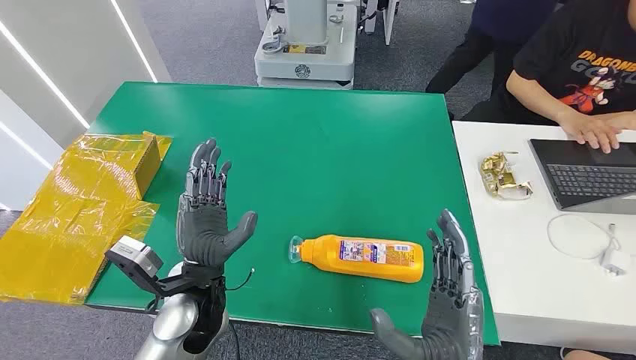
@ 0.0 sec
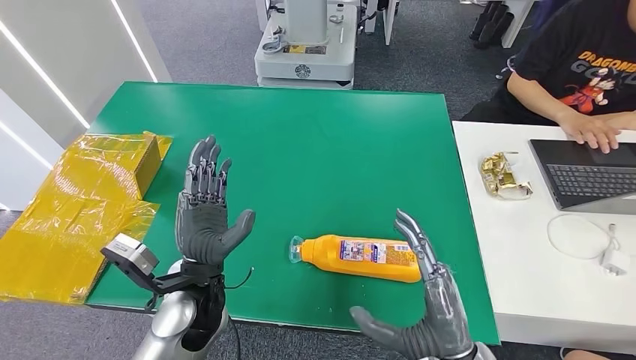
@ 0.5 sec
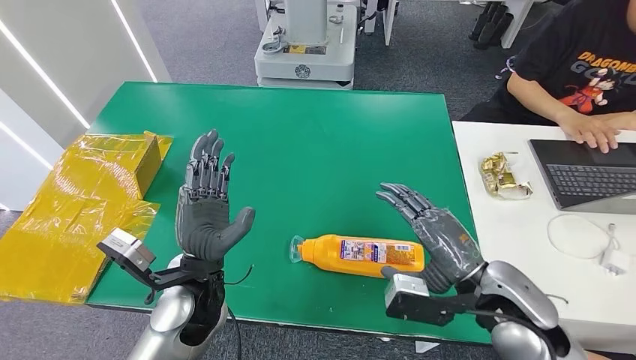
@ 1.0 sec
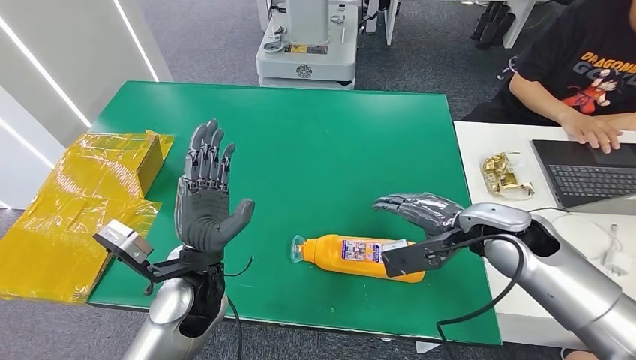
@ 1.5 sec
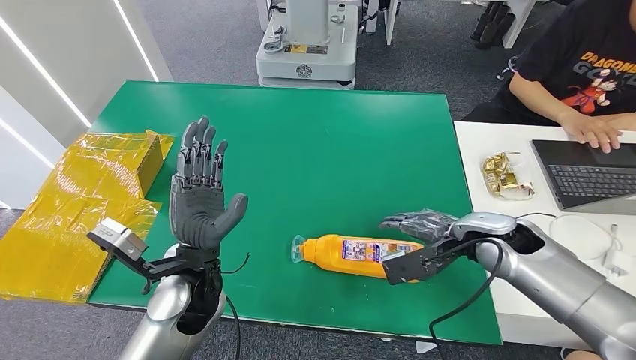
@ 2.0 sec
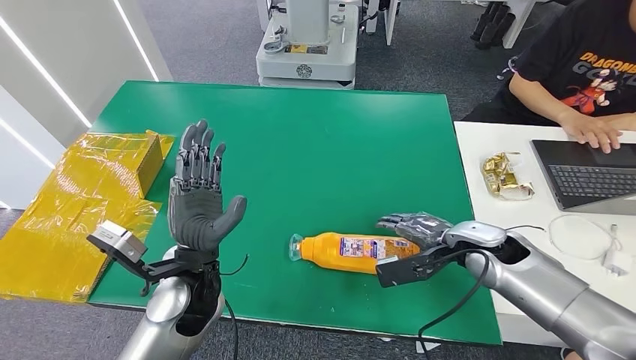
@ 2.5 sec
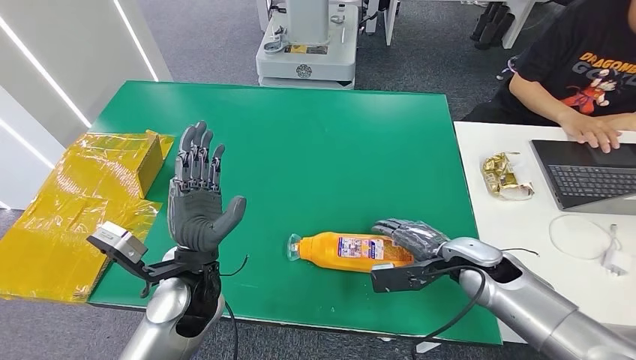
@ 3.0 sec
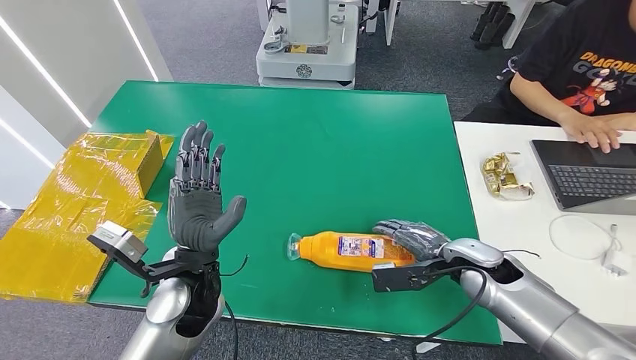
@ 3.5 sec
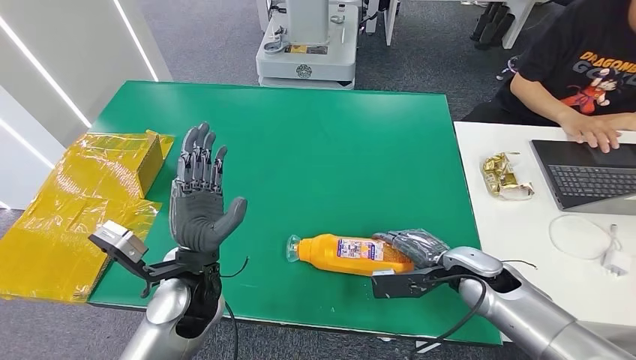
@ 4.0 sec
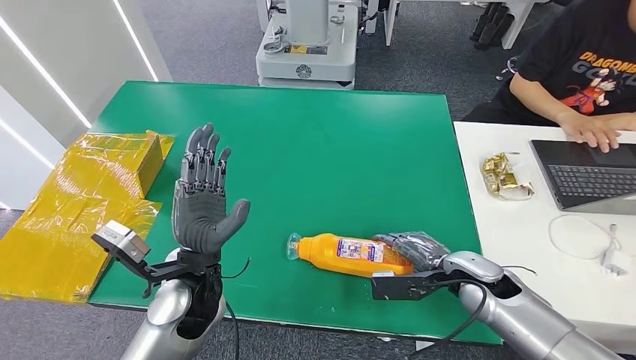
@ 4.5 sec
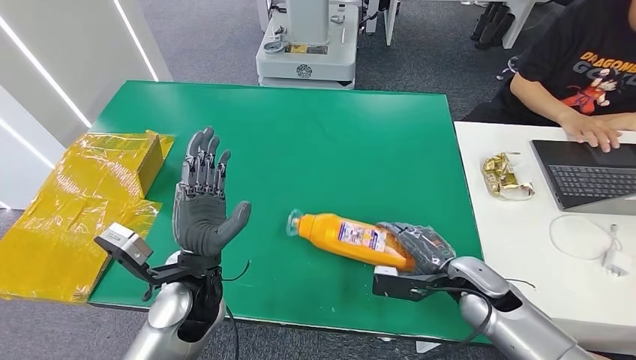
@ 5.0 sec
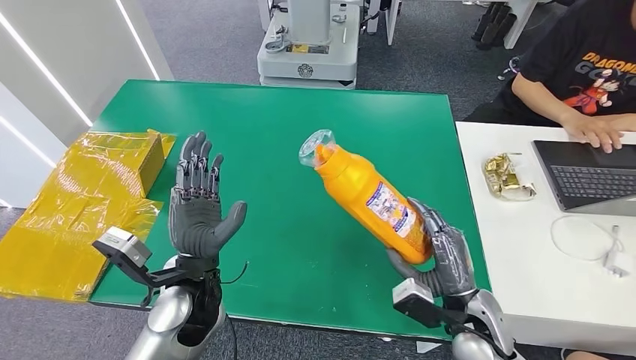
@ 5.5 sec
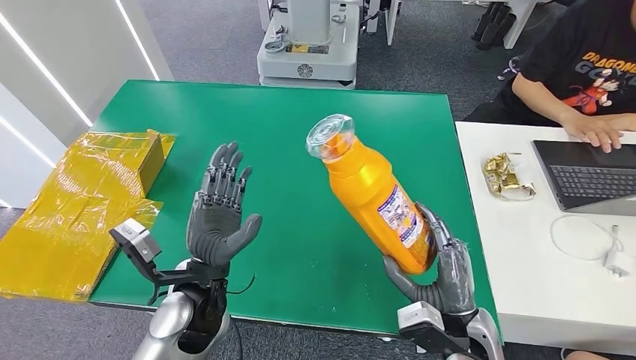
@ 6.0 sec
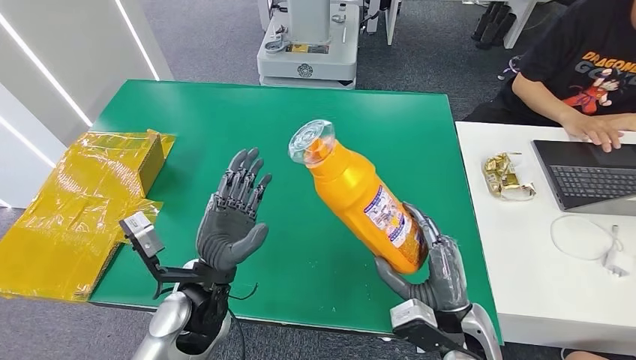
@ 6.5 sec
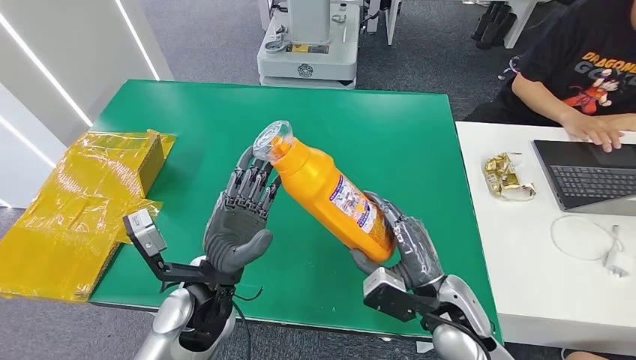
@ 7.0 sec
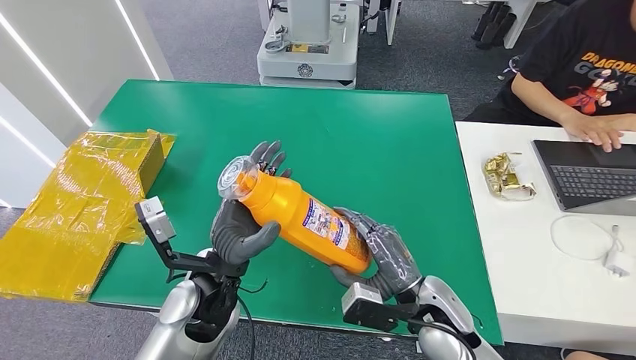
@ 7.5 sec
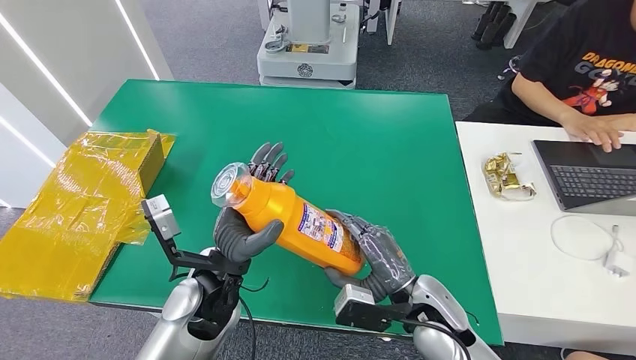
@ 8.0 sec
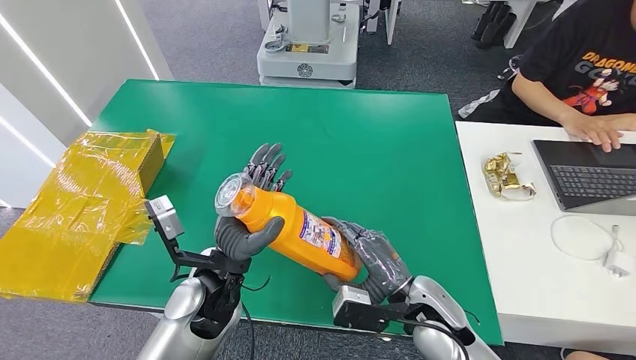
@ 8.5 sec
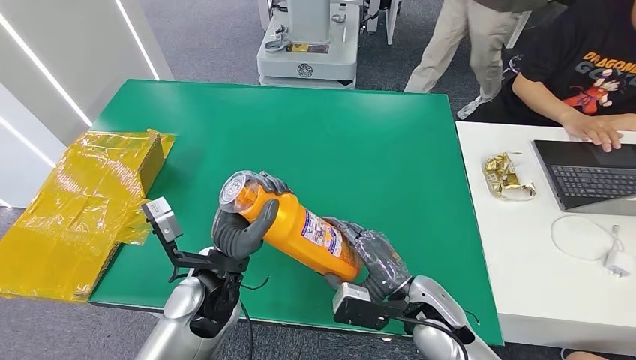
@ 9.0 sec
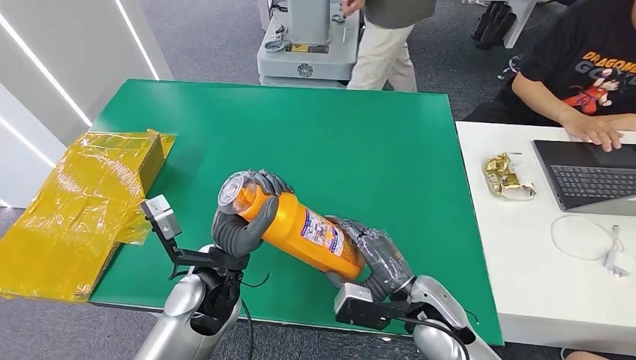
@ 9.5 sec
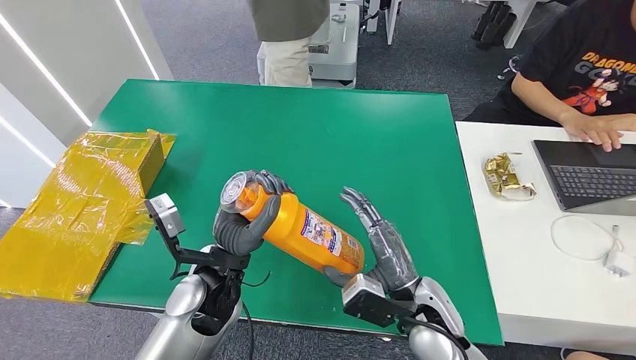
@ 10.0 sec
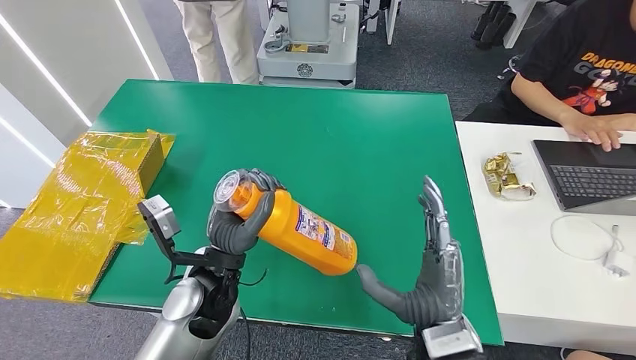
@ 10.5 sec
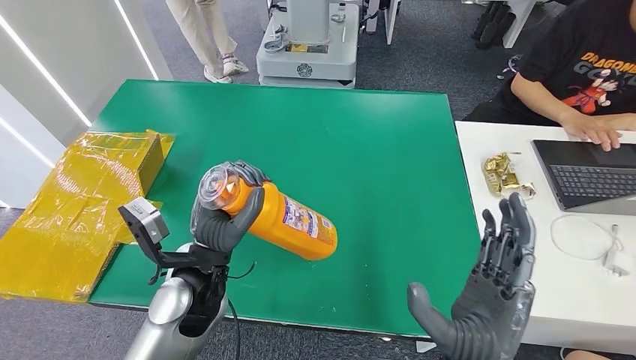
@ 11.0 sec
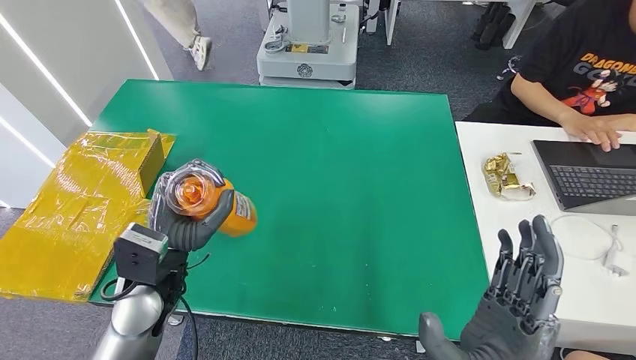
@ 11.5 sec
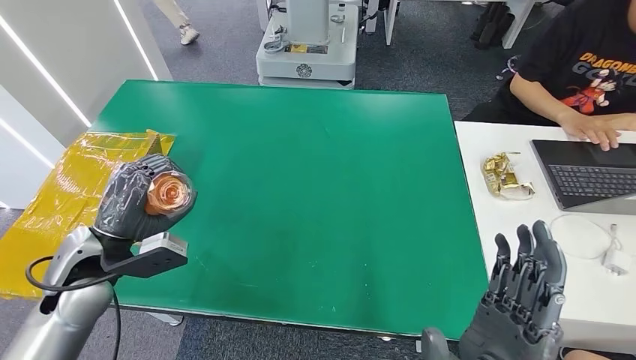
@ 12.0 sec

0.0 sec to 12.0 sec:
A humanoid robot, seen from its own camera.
Step, 0.0 sec to 6.0 sec: Pick up the bottle from the table.
2.0 sec to 4.0 sec: The right hand travels downward by about 10 cm.
4.0 sec to 6.0 sec: The right hand moves backward and to the left, approximately 15 cm.
6.0 sec to 8.0 sec: The right hand heads to the left, covering some 5 cm.
8.0 sec to 10.0 sec: The hands make only small movements.

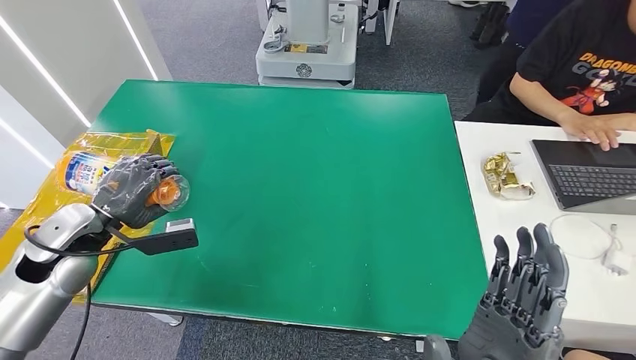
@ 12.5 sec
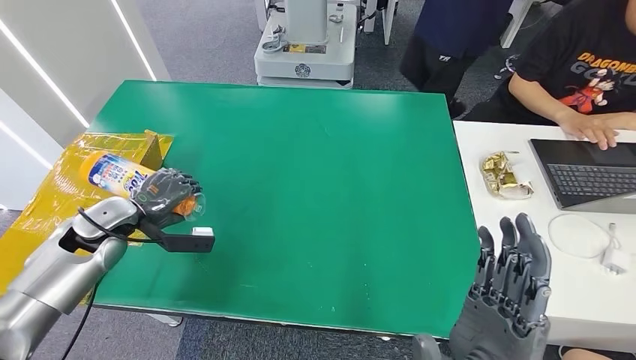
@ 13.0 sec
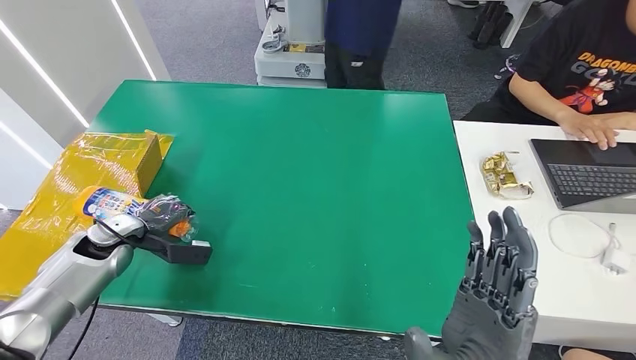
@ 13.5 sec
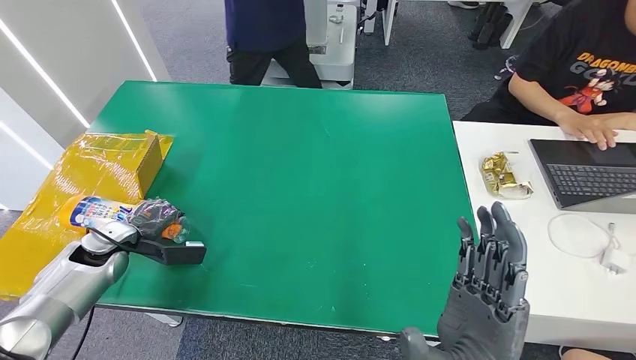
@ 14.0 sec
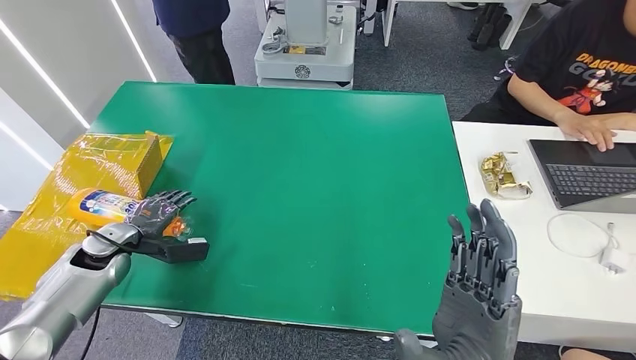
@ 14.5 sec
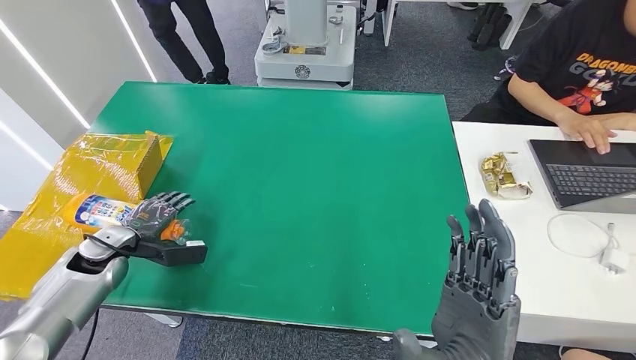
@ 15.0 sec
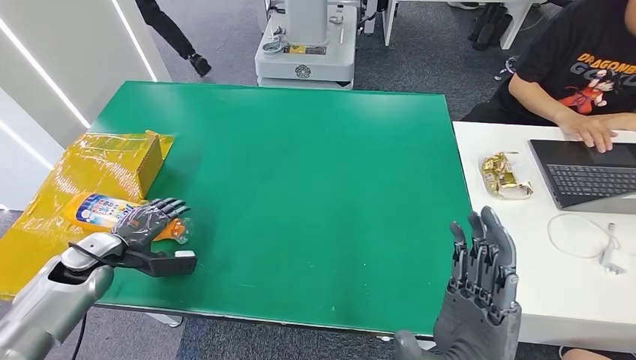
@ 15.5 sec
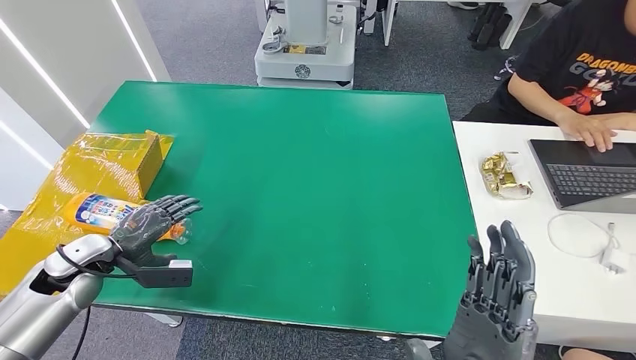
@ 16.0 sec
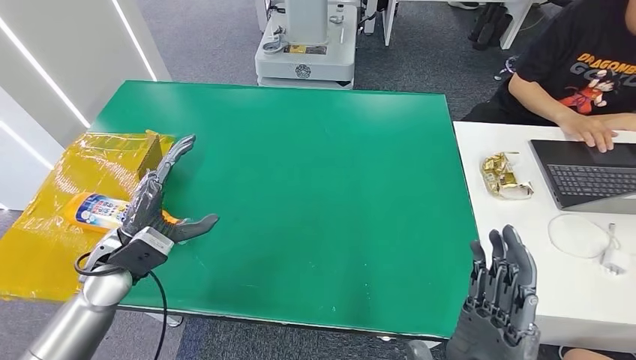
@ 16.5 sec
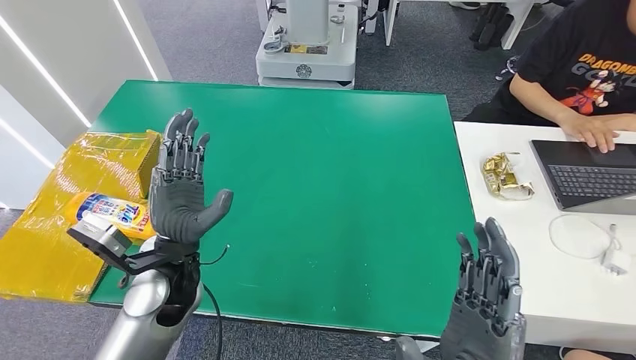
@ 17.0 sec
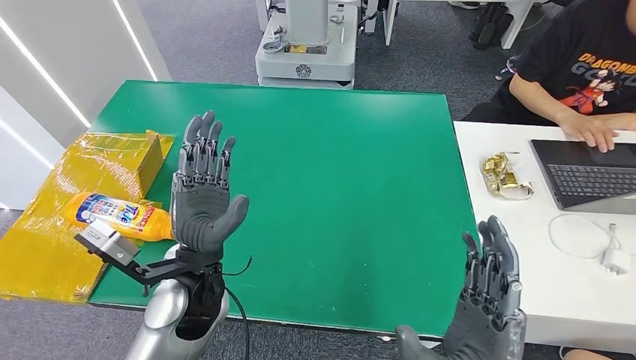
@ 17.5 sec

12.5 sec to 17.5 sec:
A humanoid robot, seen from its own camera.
Step, 12.5 sec to 17.5 sec: Turn the bottle to the front side.
15.0 sec to 17.5 sec: The left hand travels to the right and upward by about 30 cm.
